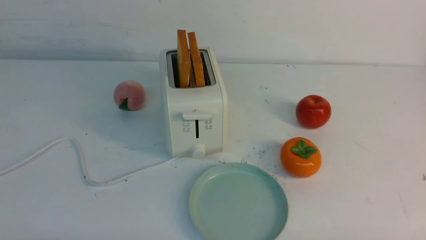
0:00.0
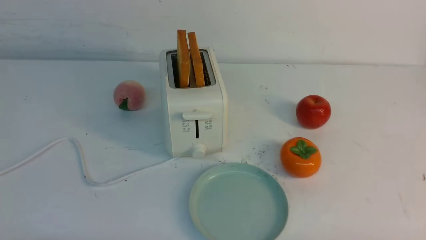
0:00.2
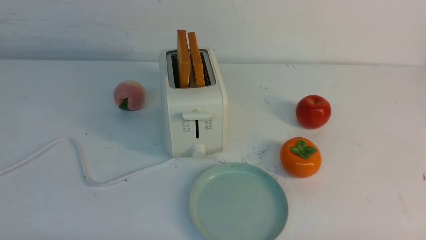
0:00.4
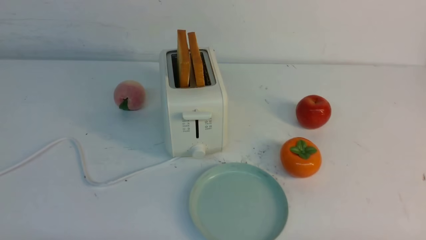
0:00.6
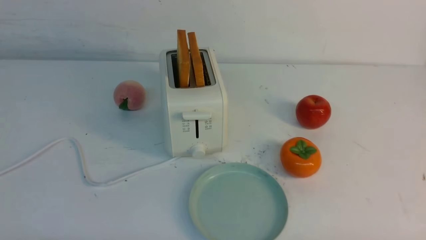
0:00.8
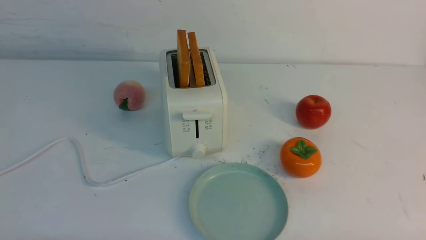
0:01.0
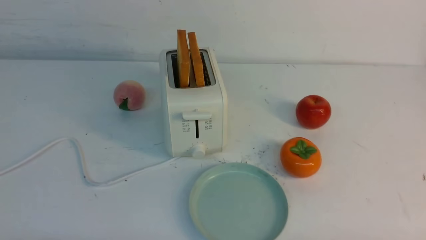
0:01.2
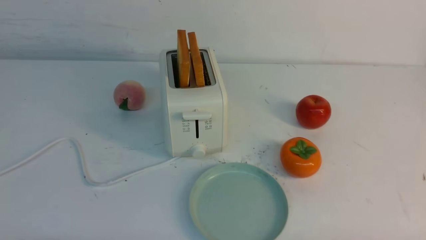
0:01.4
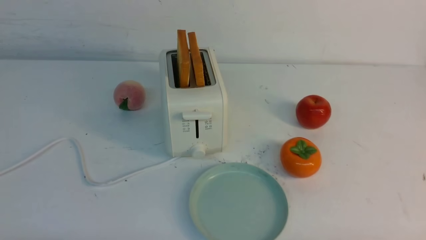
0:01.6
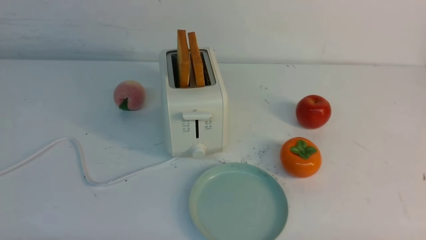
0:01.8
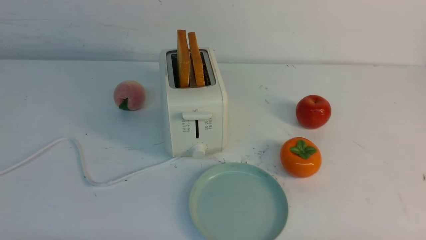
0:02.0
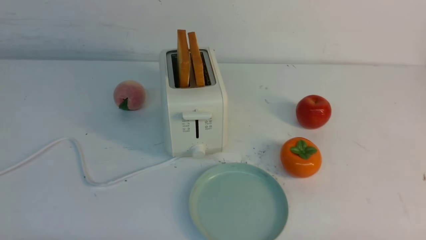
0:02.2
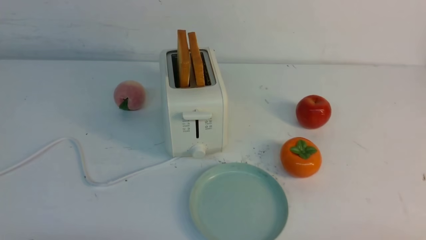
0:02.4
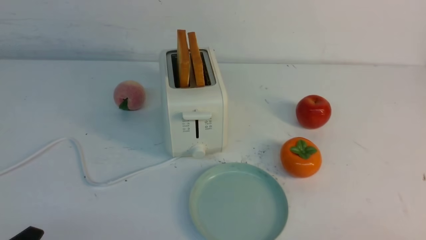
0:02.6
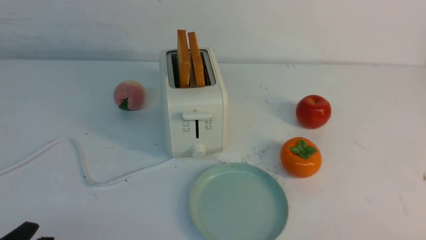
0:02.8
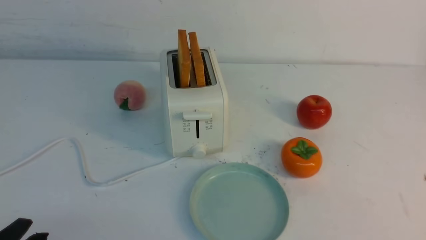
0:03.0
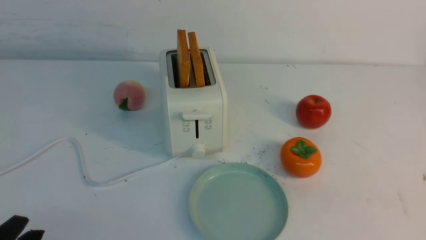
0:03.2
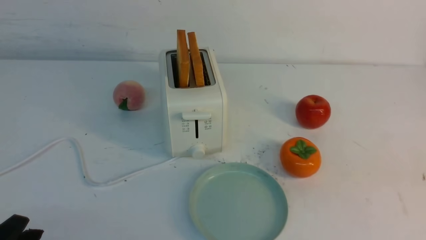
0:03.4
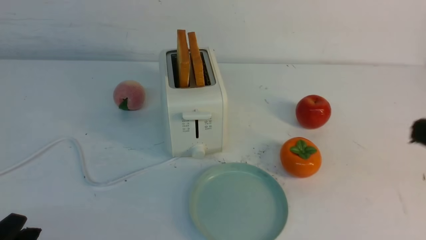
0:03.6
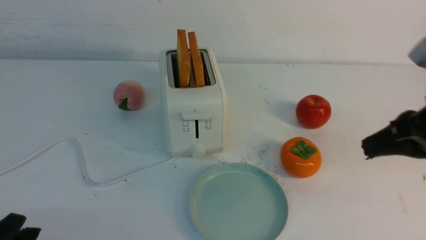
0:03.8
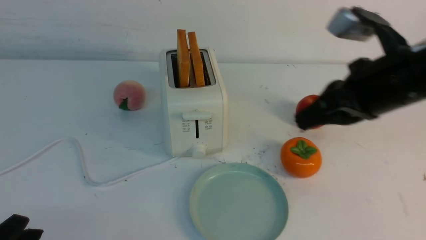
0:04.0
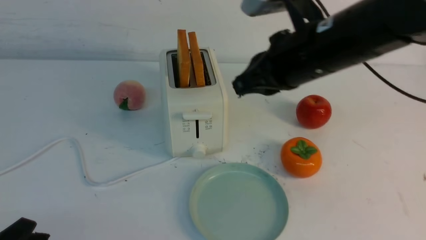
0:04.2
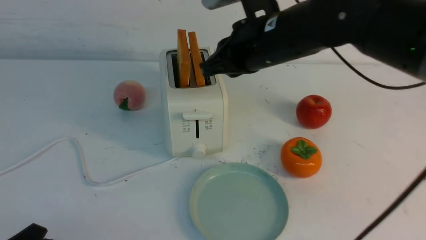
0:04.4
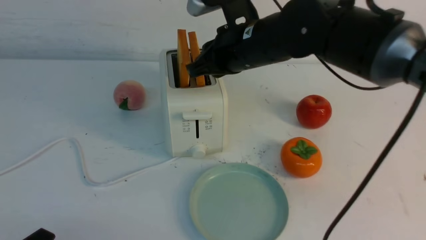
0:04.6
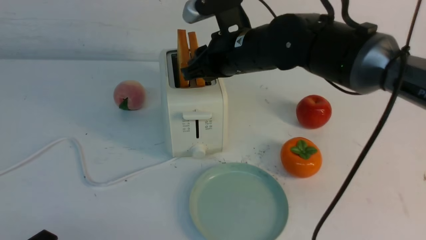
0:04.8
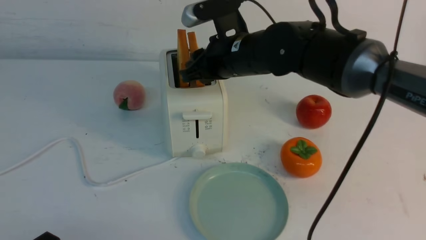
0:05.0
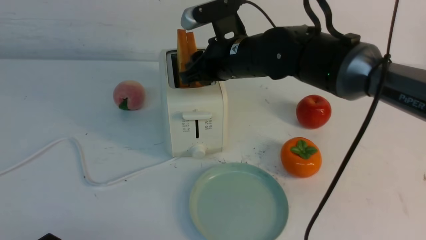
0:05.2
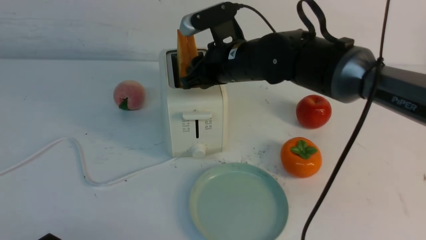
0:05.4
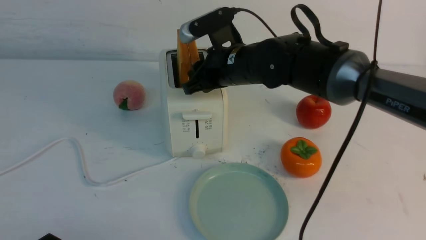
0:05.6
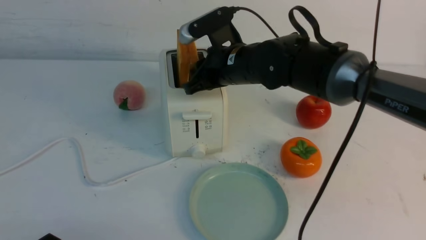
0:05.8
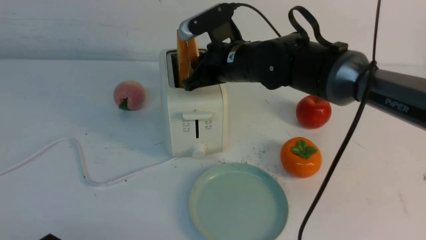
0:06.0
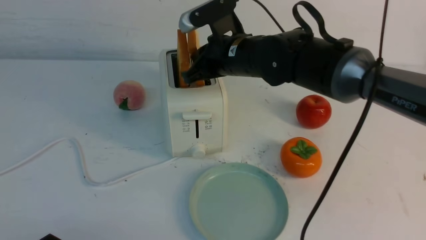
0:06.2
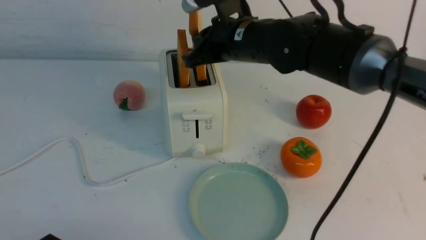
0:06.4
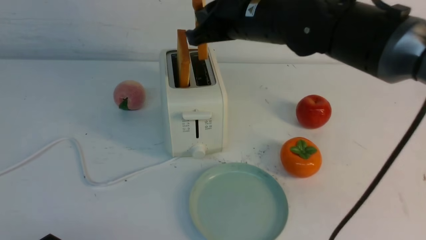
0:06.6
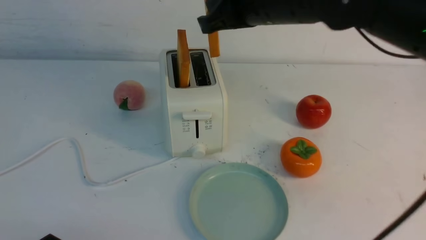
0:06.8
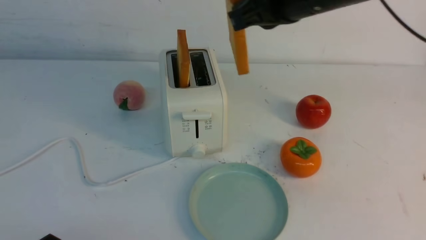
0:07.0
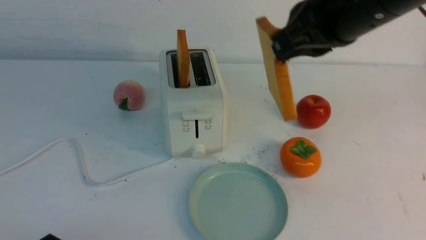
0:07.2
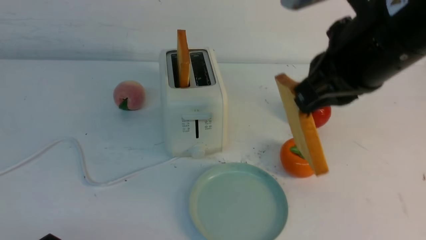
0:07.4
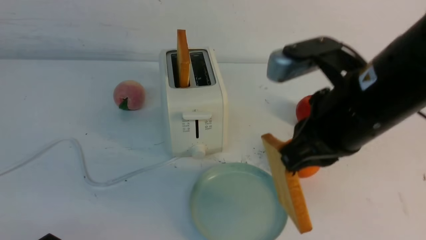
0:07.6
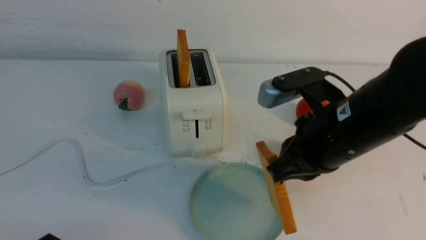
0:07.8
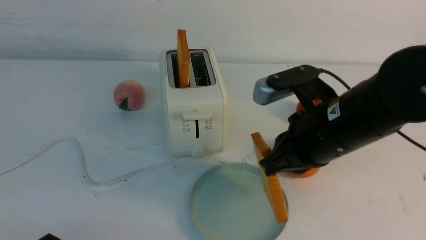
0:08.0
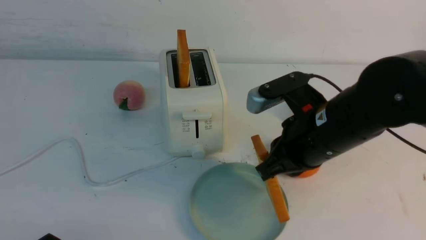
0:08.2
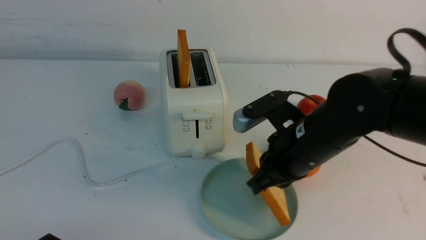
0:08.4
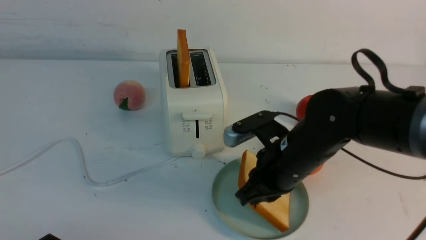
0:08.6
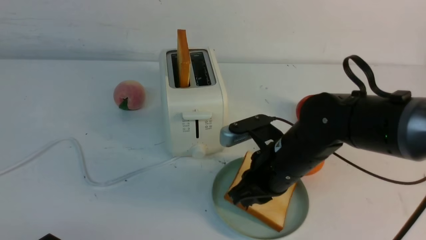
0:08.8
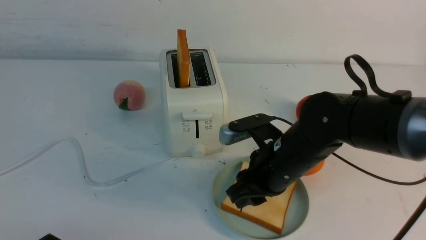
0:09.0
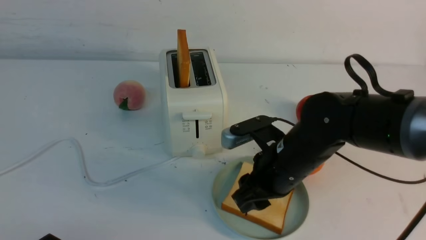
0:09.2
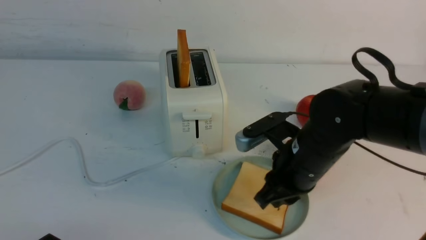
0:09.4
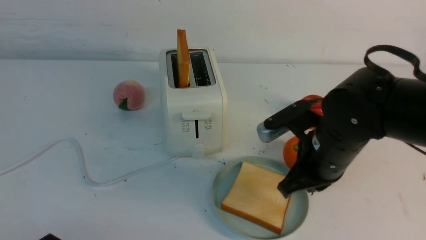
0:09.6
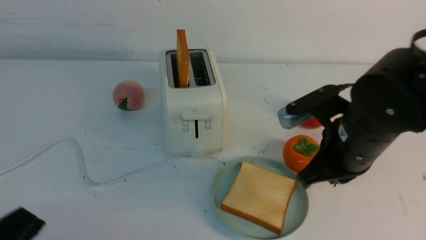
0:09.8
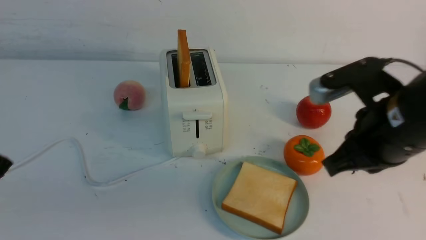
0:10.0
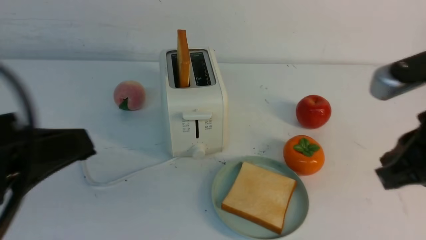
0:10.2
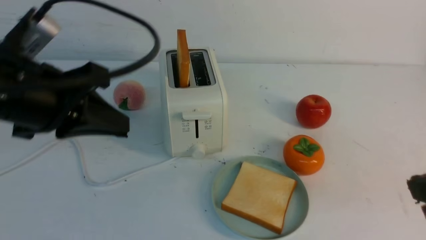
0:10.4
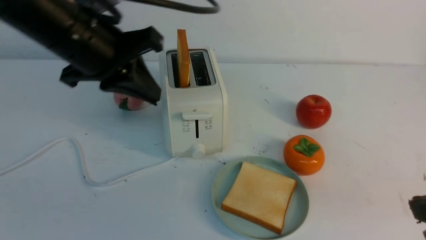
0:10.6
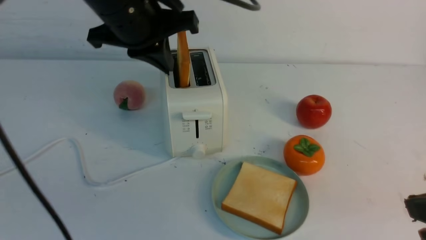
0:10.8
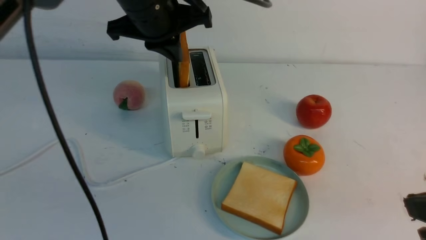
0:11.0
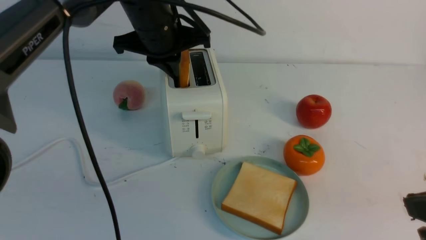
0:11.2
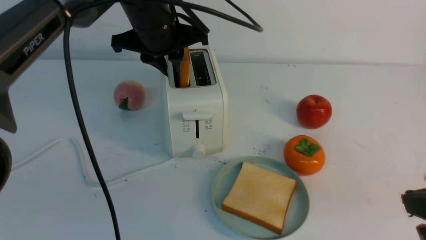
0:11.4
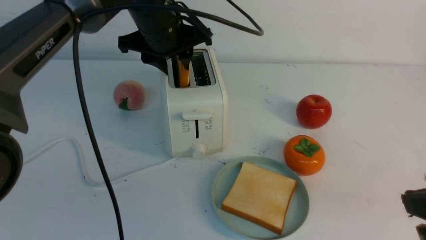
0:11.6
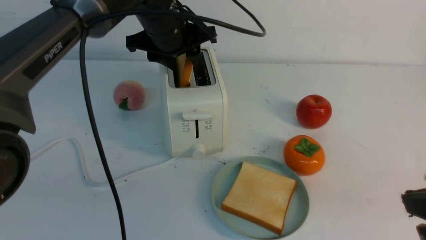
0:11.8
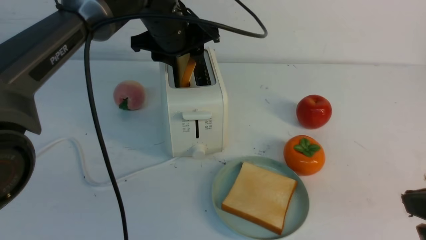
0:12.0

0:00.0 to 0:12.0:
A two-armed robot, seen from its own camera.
Task of the whole recording: take toasted bread from bread machine on white table place on plate.
Step, 0:00.0 to 0:06.6: use the right arm to take out a slice of bread.
Step, 0:06.8 to 0:09.8: use the right arm to put a slice of bread into the plate.
0:00.0 to 0:01.6: Both grippers stay put.
0:03.0 to 0:04.4: The right gripper travels forward, to the left and upward by about 40 cm, and closes its fingers.
0:04.4 to 0:06.0: The right gripper moves forward and downward, approximately 10 cm, and opens, then closes once more.
0:06.0 to 0:07.6: The right gripper moves backward and to the right, roughly 20 cm.
0:07.6 to 0:09.0: The right gripper moves downward, roughly 15 cm, and opens its fingers.
0:09.0 to 0:10.4: The right gripper heads backward, to the right and upward, covering about 25 cm, and closes. The left gripper goes approximately 25 cm upward and forward, and closes.
0:10.4 to 0:12.0: The left gripper travels forward and to the right by roughly 25 cm, and opens up.

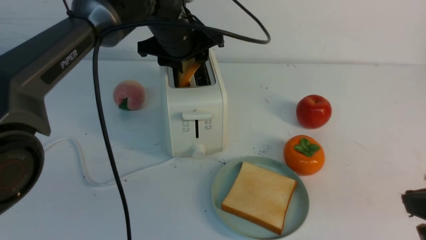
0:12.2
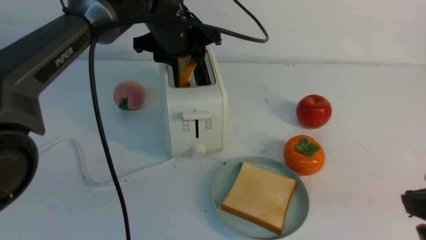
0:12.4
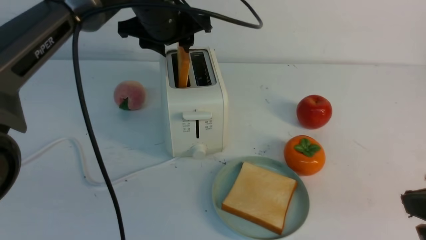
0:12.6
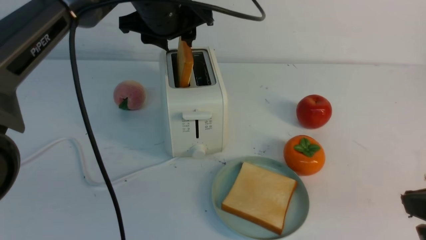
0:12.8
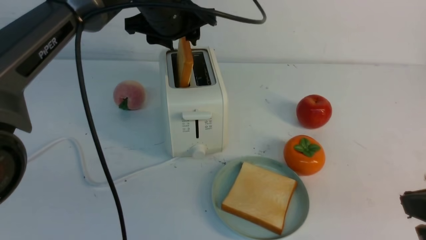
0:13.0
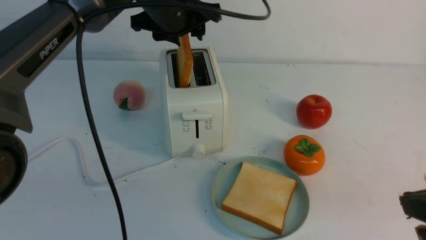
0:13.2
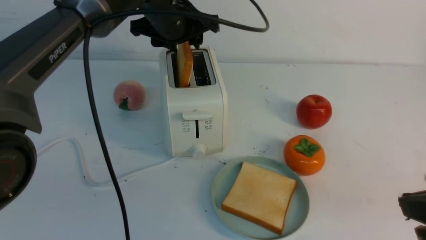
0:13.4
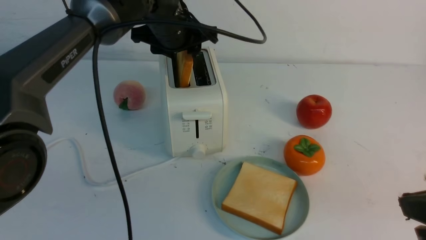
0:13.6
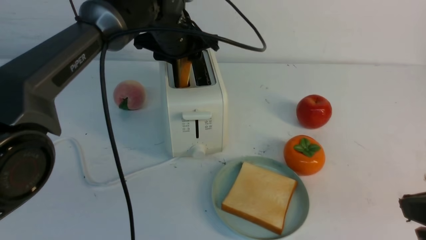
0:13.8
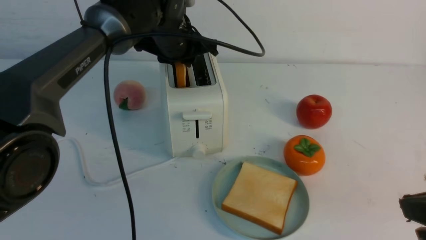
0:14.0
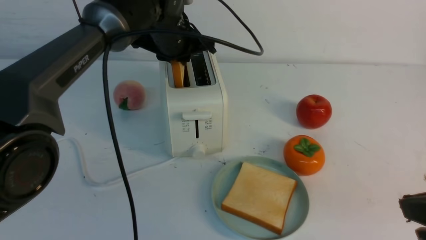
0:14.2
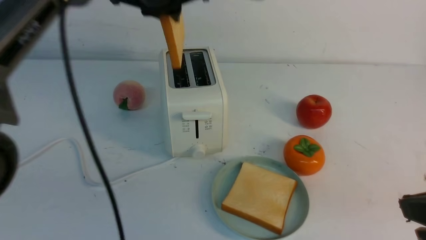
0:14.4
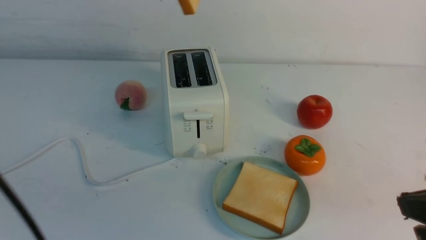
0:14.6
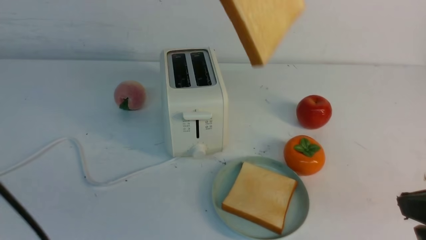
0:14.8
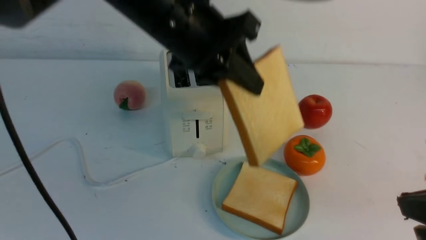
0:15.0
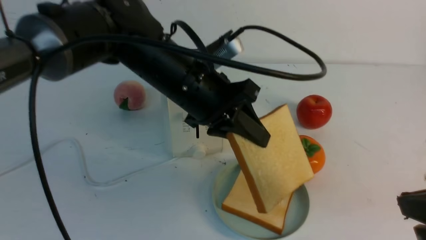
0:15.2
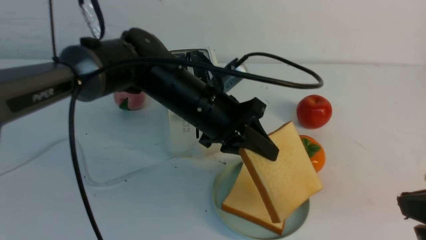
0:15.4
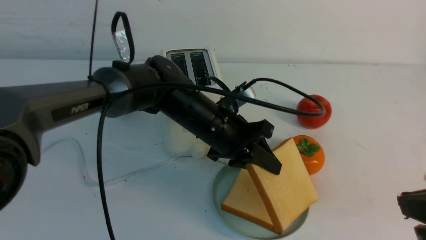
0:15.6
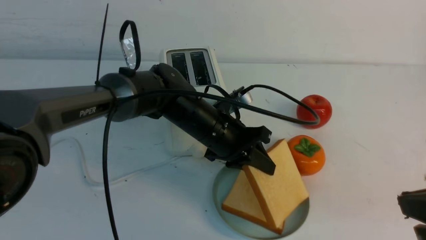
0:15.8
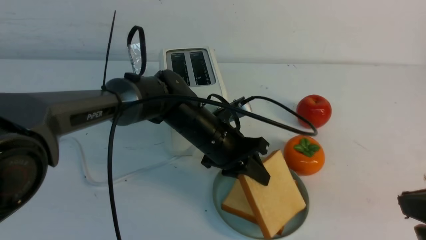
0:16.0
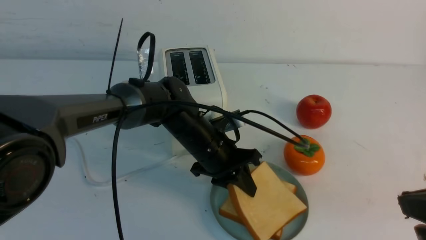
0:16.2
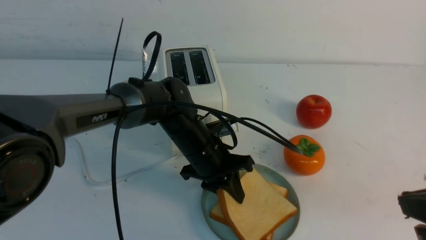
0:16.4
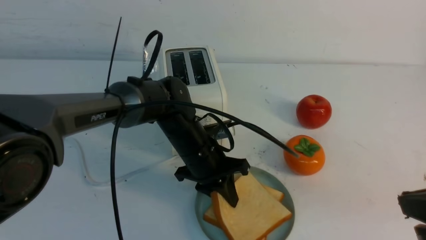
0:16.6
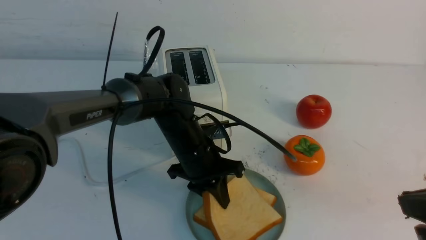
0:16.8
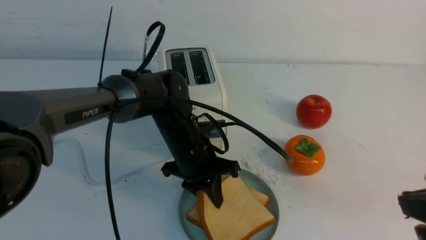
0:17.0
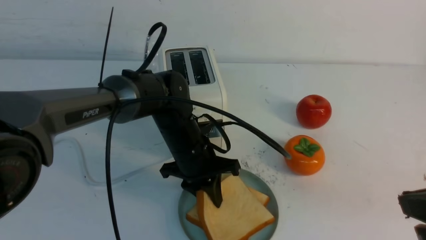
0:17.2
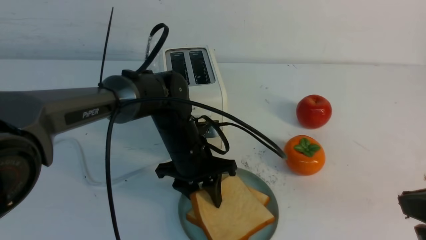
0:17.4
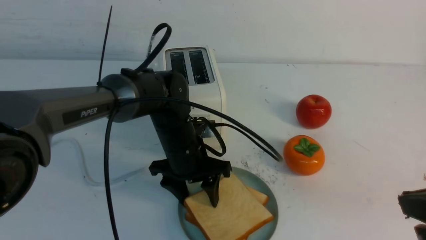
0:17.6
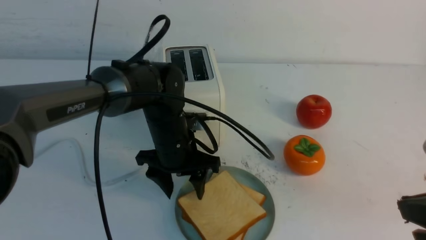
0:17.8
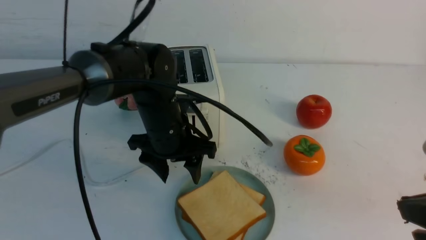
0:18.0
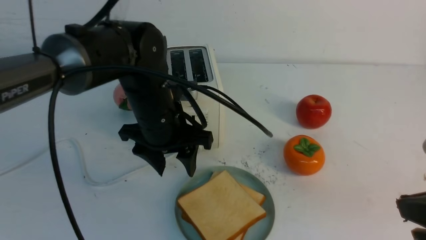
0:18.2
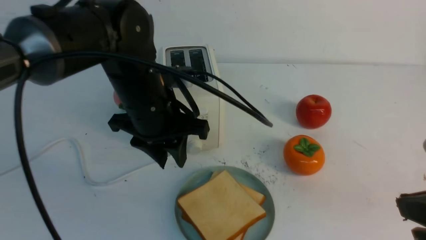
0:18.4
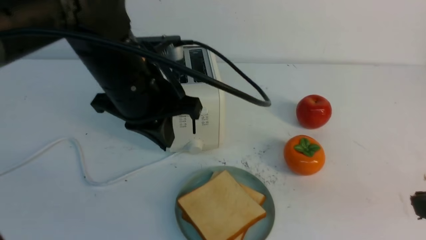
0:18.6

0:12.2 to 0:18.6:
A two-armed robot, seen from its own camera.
Task of the whole recording: take toasted bread from bread machine on white table place on plate.
Step, 0:12.2 to 0:14.6: use the left arm to take out a slice of bread.
Step, 0:14.8 to 0:17.8: use the left arm to put a slice of bread into the empty plate.
0:12.2 to 0:13.8: The grippers move only a little.
0:13.8 to 0:15.4: The left gripper travels backward by roughly 10 cm, reaches about 15 cm upward, then returns, and closes its fingers.
0:15.4 to 0:17.0: The left gripper goes some 10 cm downward.
0:17.0 to 0:18.6: The left gripper shifts some 20 cm upward, and opens, then closes once more.
